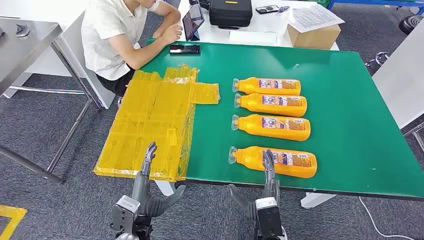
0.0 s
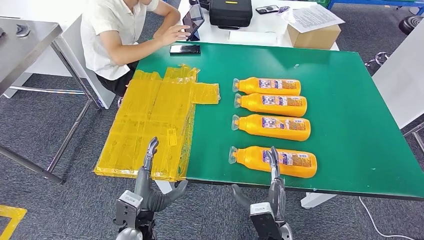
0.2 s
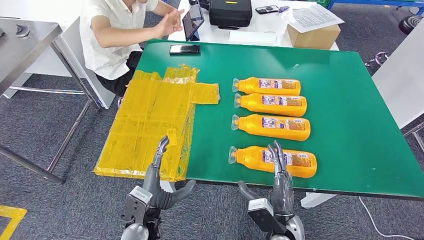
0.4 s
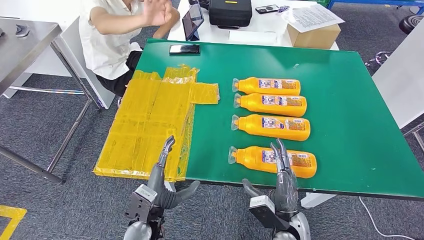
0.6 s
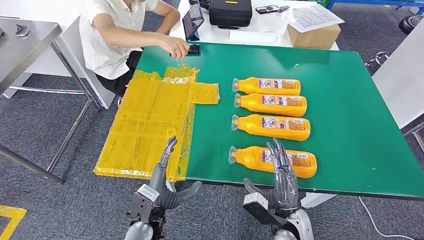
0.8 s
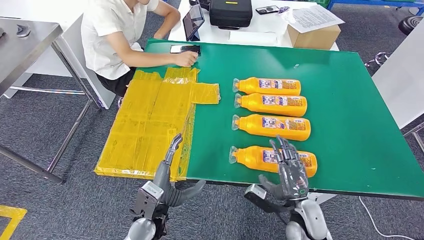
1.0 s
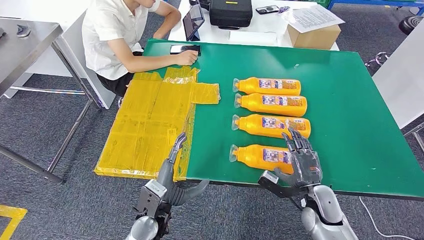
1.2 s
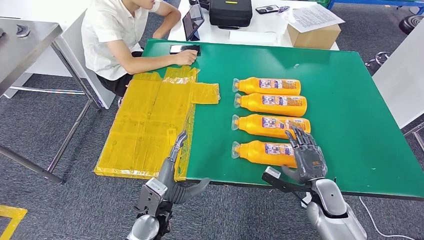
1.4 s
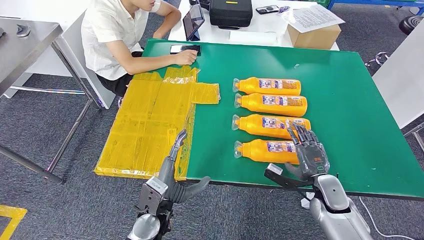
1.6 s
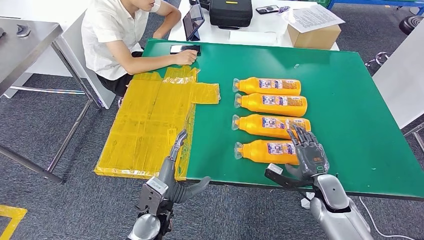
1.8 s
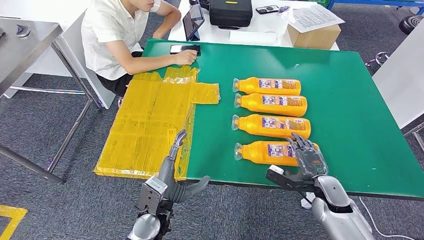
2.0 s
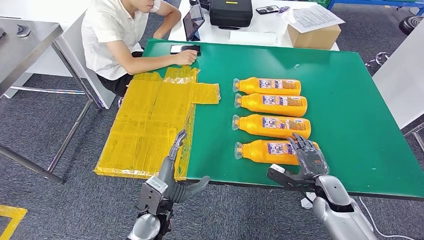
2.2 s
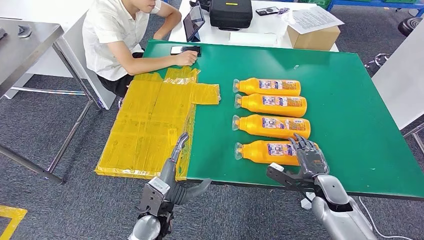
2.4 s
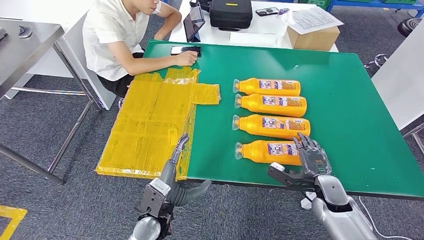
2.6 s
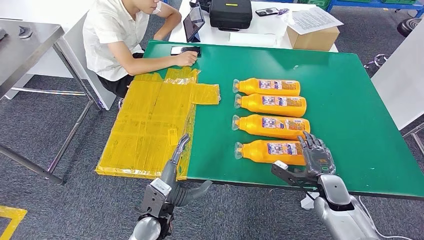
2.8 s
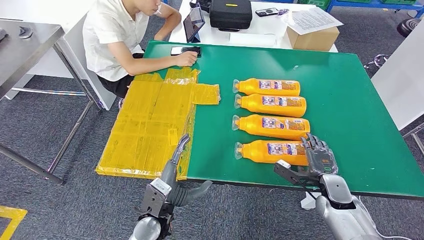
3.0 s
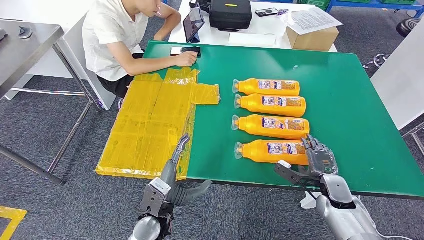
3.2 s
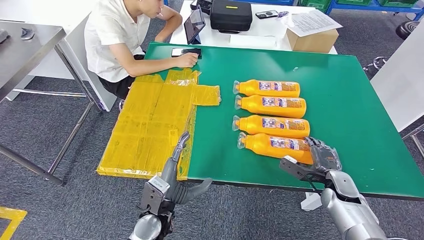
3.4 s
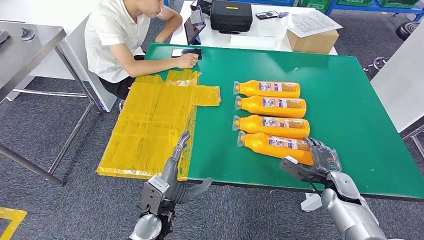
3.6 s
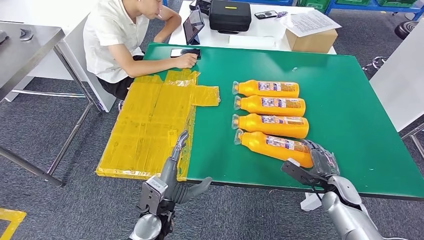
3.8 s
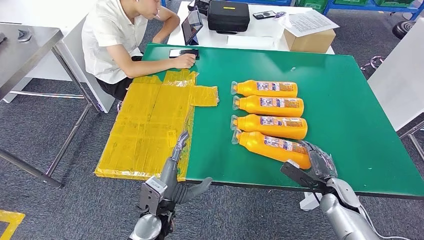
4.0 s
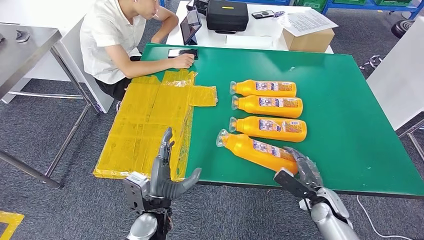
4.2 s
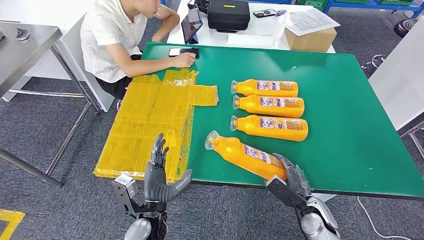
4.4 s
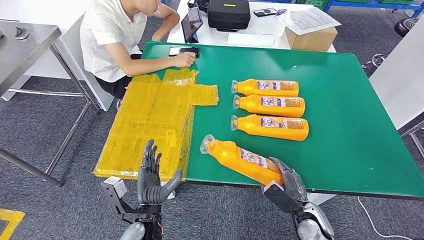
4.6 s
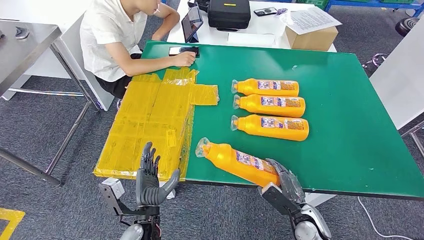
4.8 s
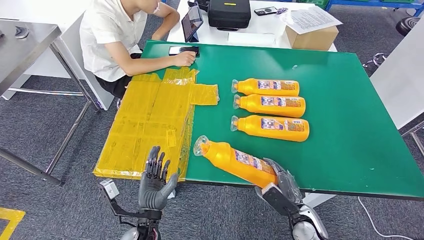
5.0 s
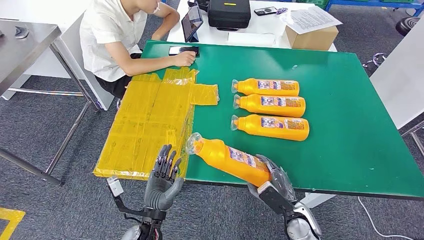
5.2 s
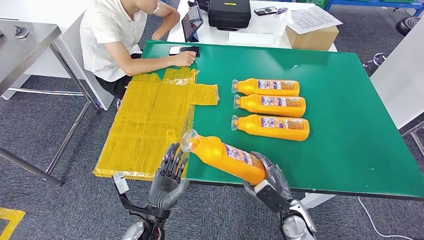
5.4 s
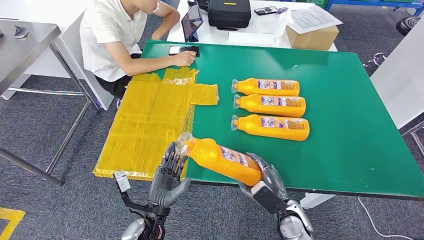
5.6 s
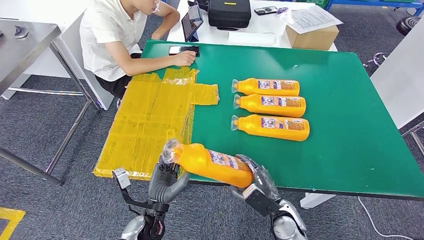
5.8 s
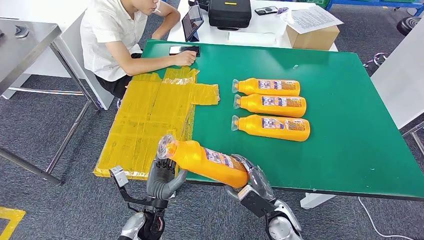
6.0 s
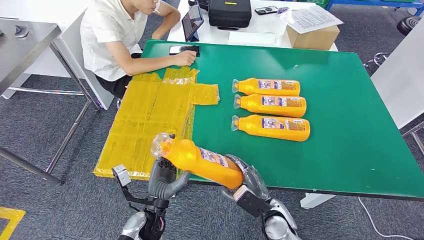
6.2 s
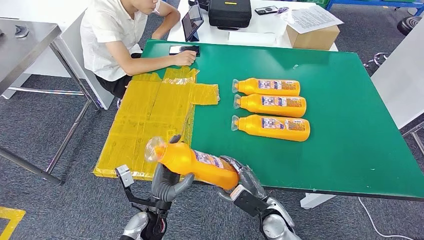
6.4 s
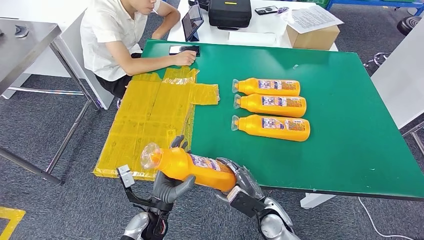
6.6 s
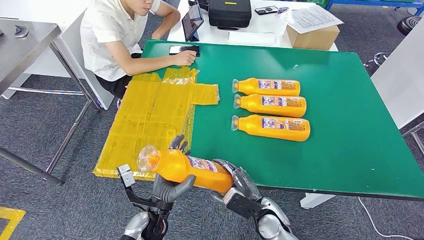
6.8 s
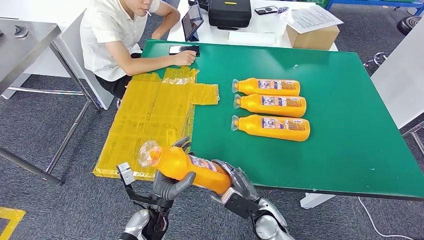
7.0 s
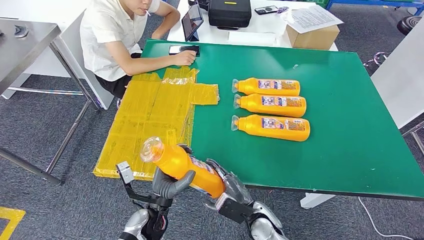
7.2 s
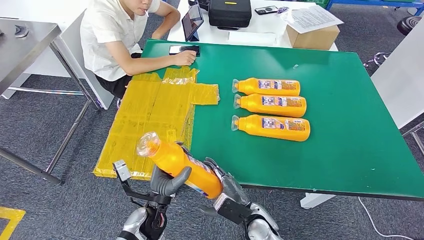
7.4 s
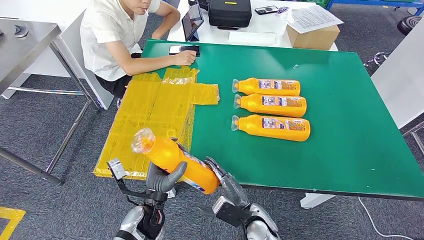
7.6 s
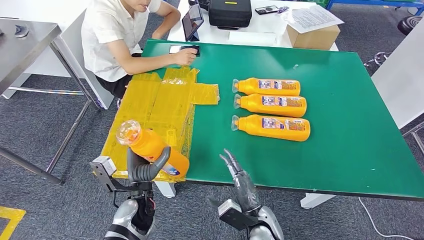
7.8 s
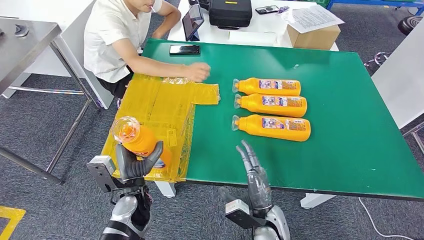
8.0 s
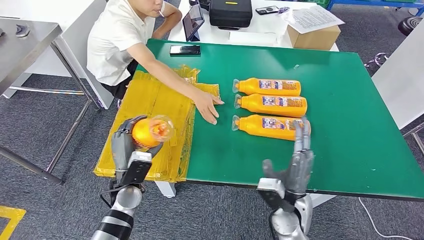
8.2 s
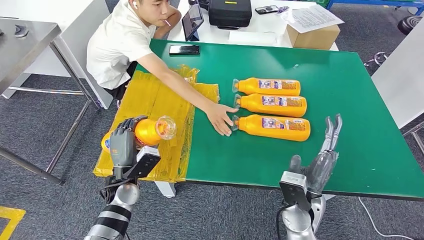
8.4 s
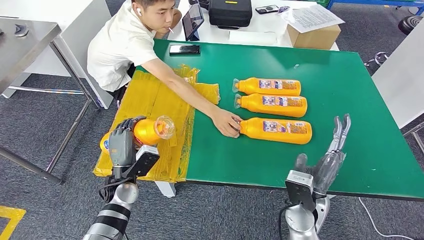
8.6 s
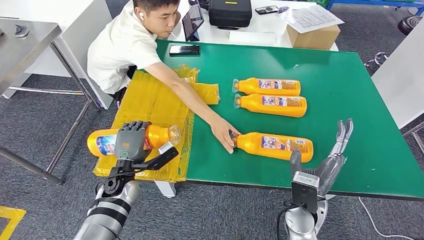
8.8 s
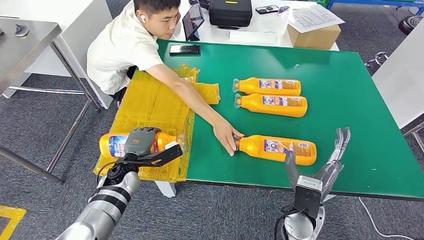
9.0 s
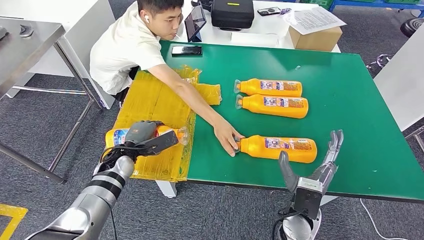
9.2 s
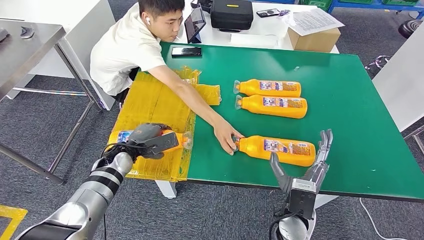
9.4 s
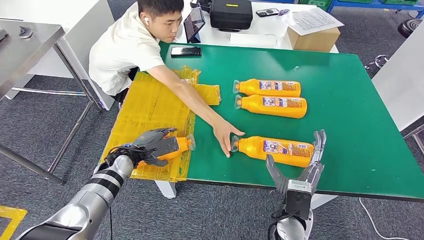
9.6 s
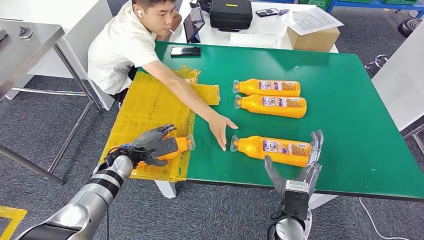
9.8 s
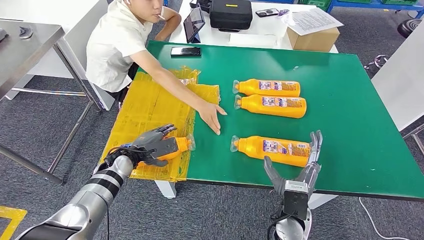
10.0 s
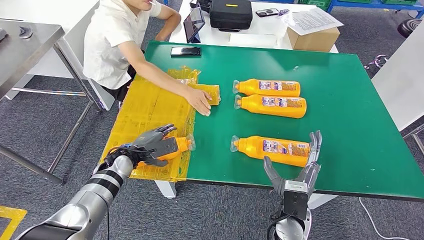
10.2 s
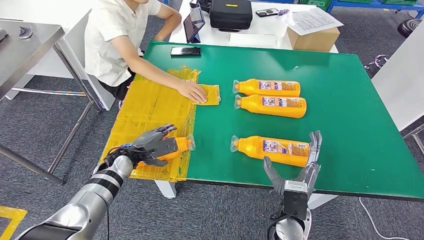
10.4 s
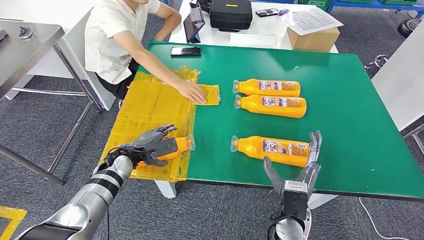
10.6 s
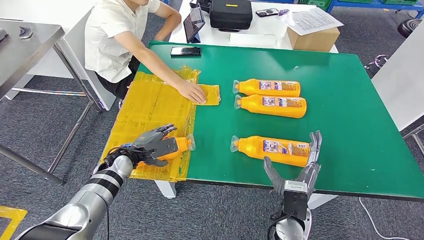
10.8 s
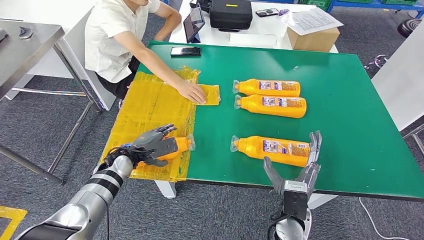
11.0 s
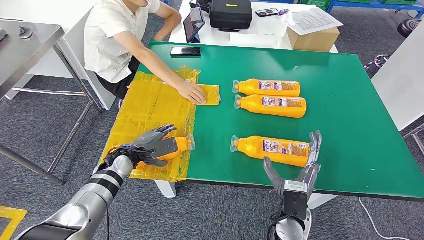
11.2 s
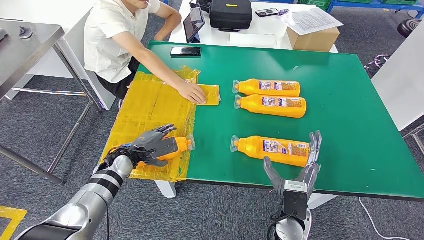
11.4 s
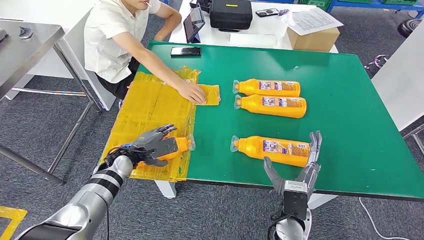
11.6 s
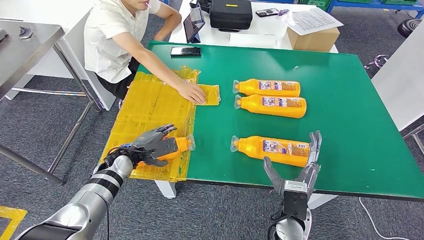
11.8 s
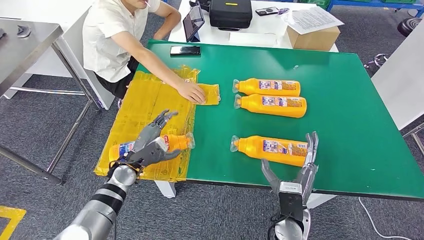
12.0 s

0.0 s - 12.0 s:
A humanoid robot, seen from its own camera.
Step, 0.0 s - 7.0 s: Take the fast-moving consumer goods bottle from the table.
Step, 7.2 s - 10.2 s: Flip the fast-moving consumer goods bottle to the front side.
4.4 s - 6.0 s: The right hand goes approximately 10 cm to the left.
6.0 s - 7.6 s: The right hand is displaced to the left by roughly 5 cm.

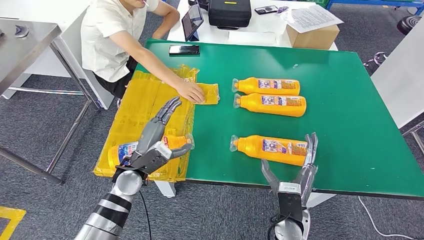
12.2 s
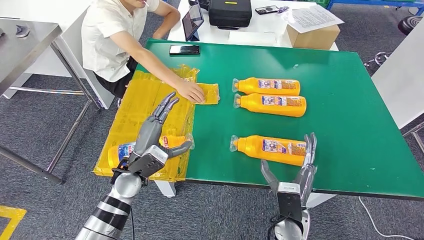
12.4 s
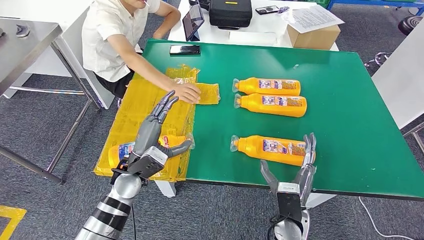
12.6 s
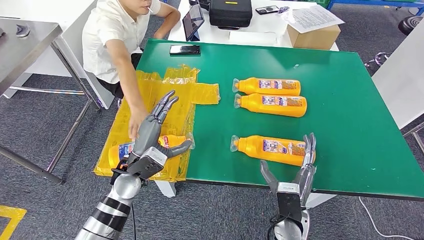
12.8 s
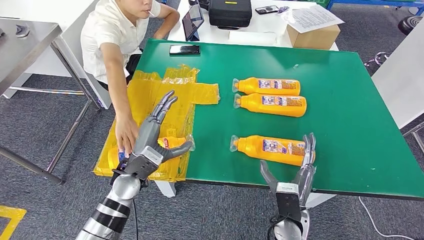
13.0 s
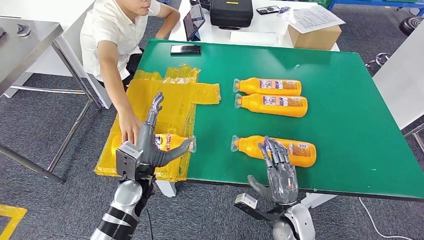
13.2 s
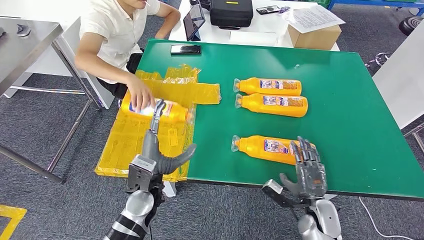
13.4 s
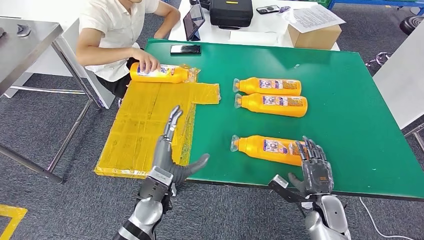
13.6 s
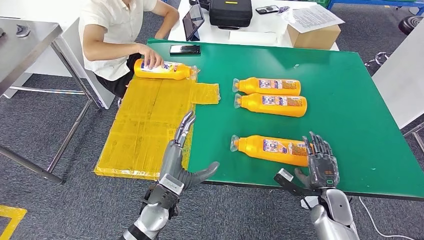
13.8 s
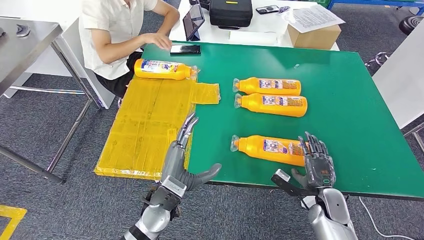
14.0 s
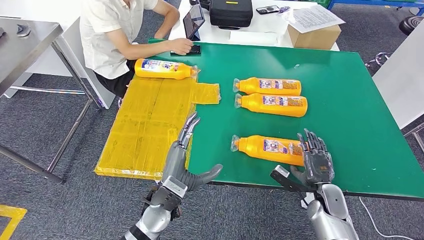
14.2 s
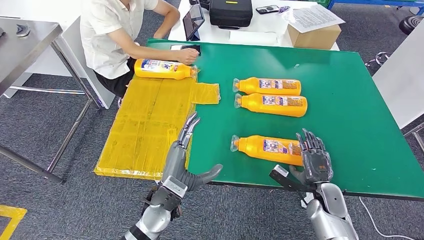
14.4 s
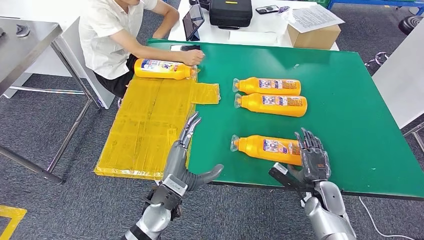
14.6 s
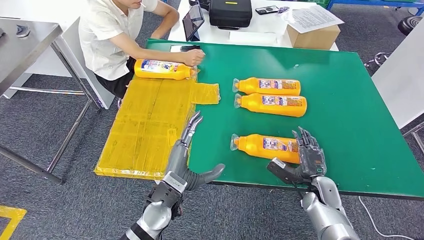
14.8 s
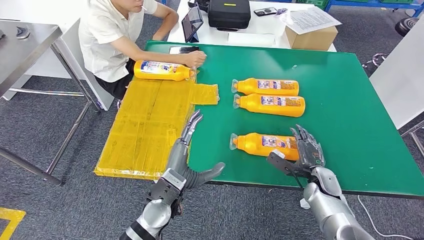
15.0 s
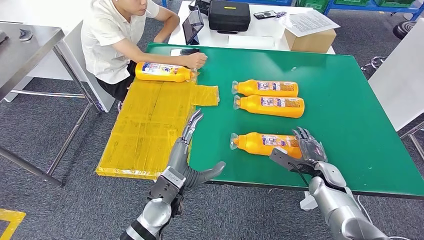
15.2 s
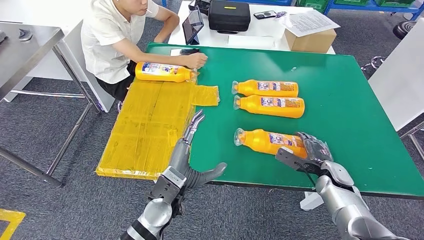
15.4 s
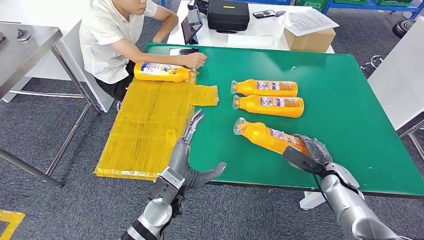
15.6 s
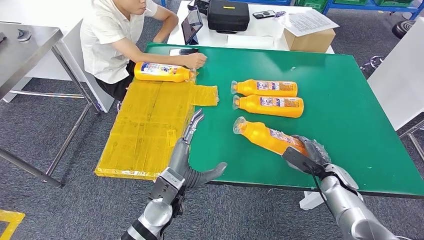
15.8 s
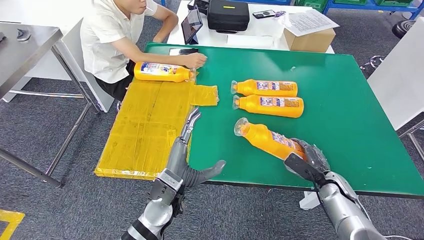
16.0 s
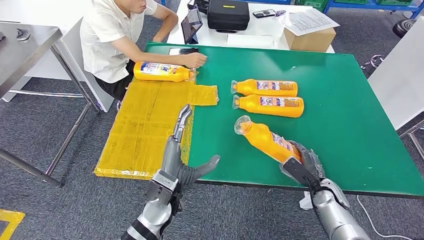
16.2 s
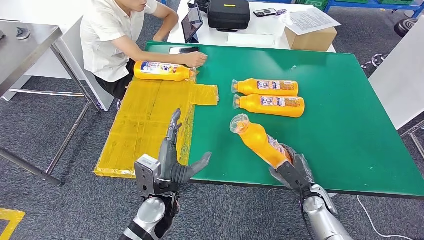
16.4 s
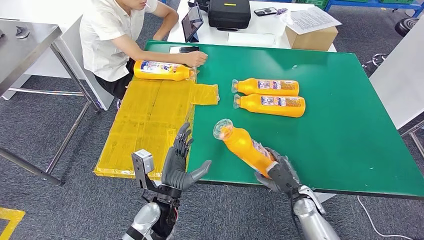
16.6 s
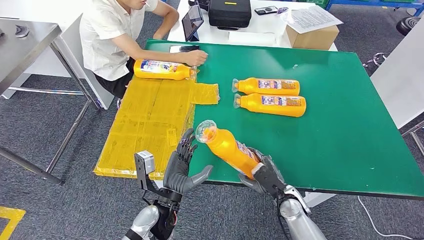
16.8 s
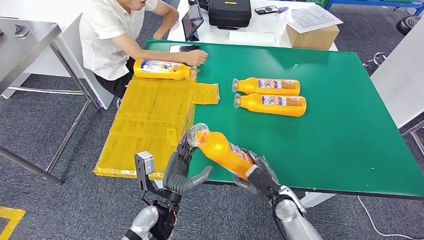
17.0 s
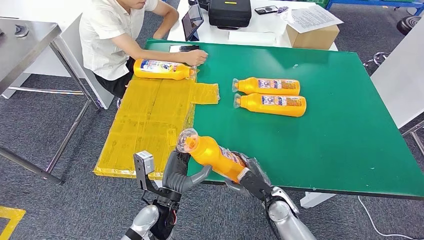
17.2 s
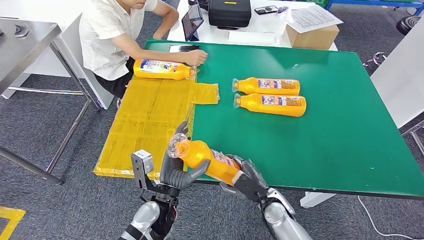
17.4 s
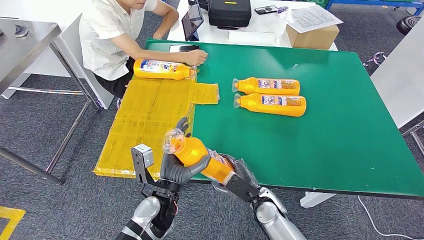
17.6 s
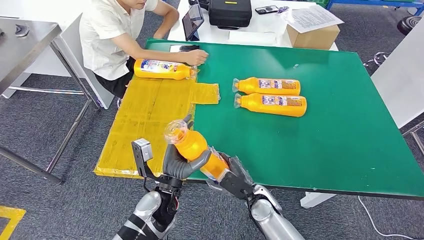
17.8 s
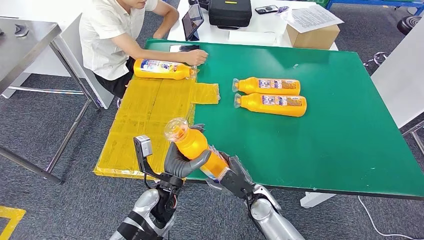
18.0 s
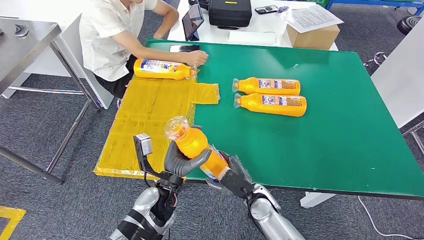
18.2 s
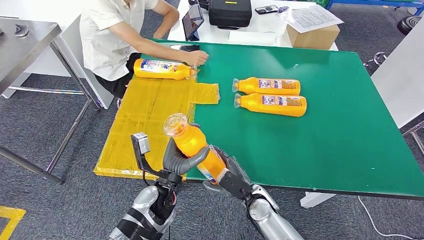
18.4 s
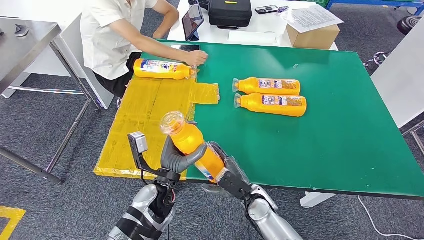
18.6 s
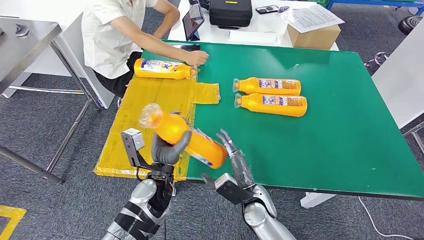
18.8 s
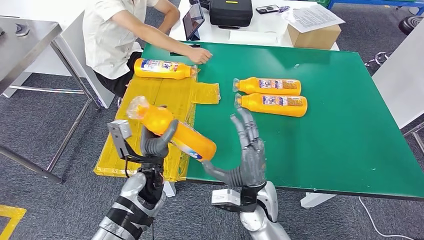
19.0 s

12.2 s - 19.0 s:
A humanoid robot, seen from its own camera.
Step, 12.2 s - 17.6 s: Pick up the fast-moving consumer goods bottle from the table.
12.2 s - 13.6 s: The right hand moves to the right, roughly 15 cm, while the left hand shifts approximately 10 cm to the right and backward.
17.6 s - 19.0 s: The left hand travels forward by roughly 5 cm. The right hand is displaced upward and to the left by approximately 10 cm.
